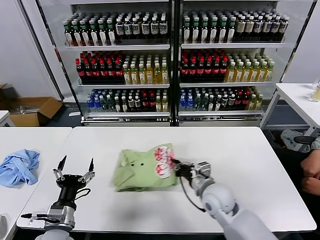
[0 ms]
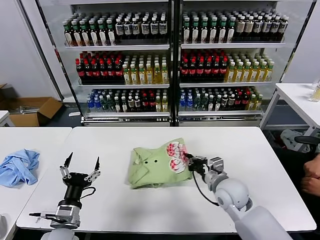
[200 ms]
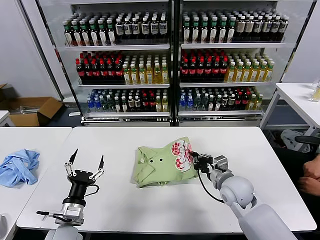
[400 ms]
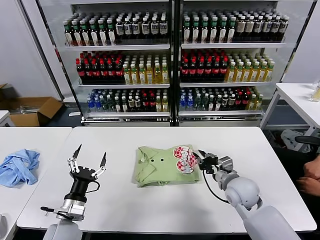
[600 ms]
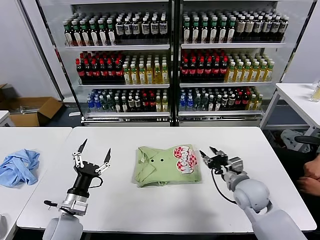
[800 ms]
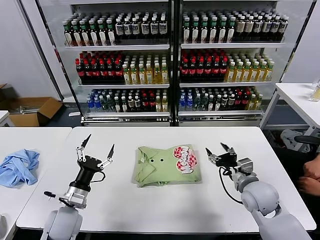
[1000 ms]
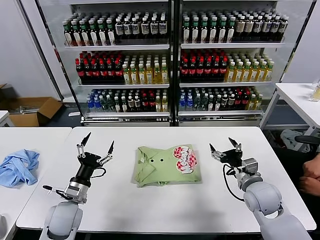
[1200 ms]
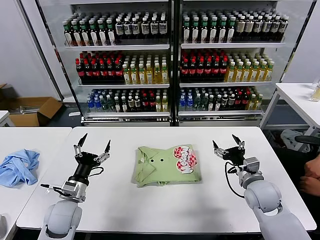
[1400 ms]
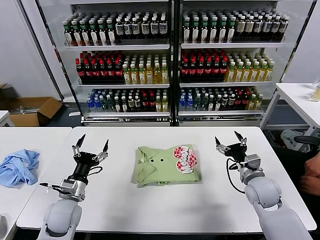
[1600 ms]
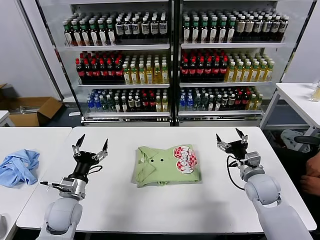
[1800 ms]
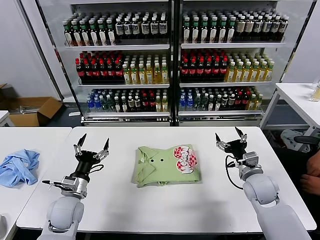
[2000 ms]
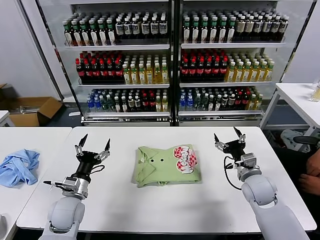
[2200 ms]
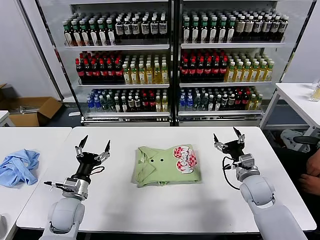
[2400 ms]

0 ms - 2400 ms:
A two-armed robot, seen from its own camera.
Task of the whole recording: fold and organize the clothes.
0 ms - 1200 ms: The left gripper travels forward by some 10 cm. Meanwhile the right gripper travels to the right by about 15 cm, and opens up.
1200 ms - 2400 ms: There are only small adjustments of the grippers.

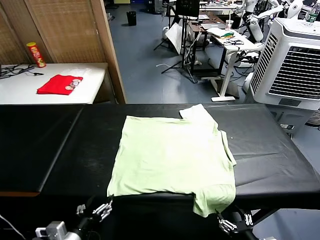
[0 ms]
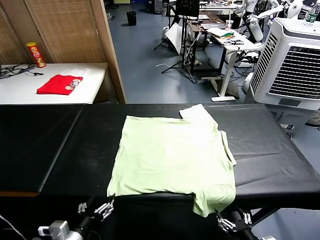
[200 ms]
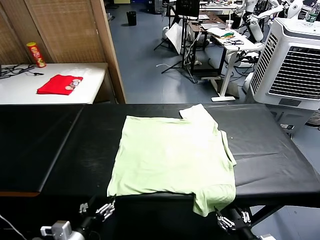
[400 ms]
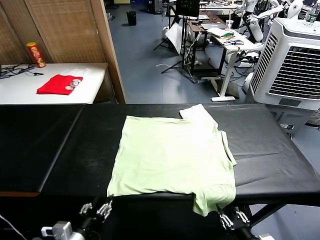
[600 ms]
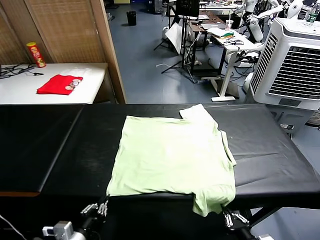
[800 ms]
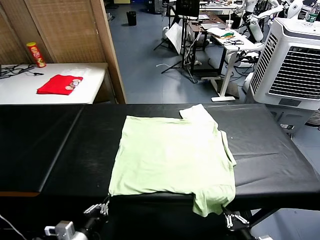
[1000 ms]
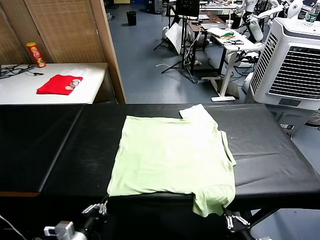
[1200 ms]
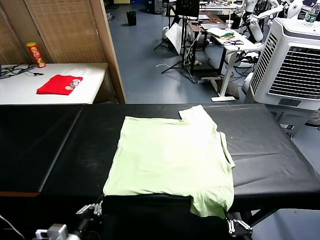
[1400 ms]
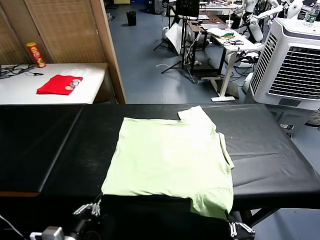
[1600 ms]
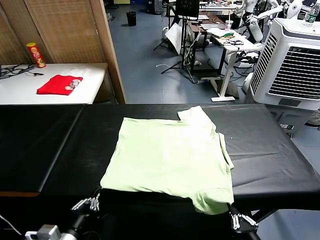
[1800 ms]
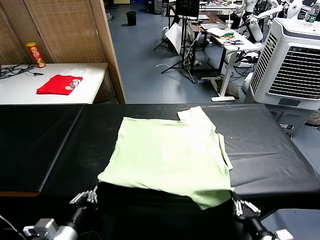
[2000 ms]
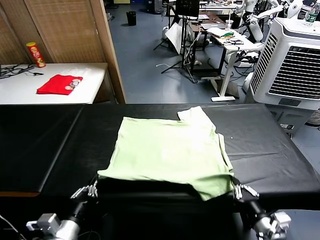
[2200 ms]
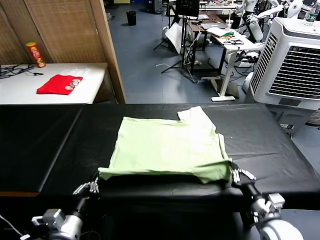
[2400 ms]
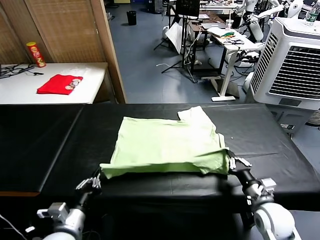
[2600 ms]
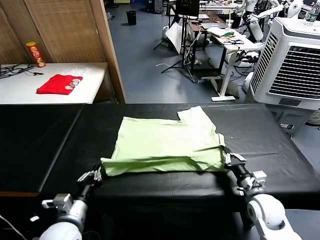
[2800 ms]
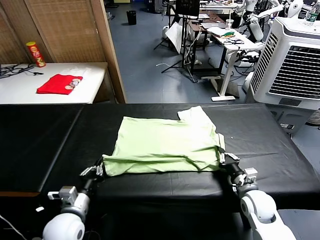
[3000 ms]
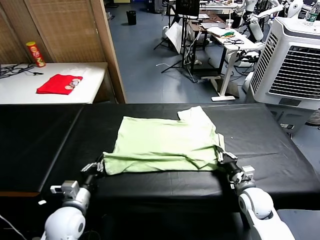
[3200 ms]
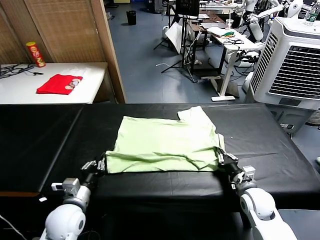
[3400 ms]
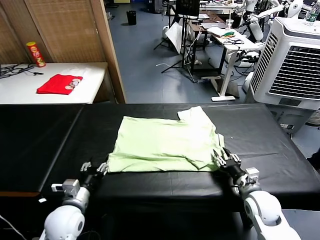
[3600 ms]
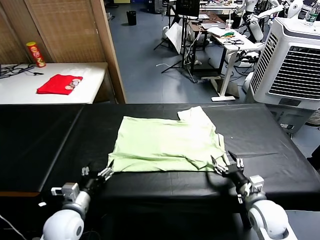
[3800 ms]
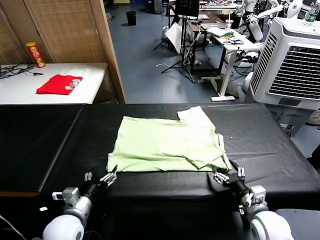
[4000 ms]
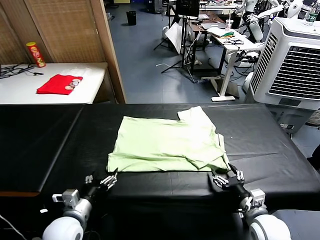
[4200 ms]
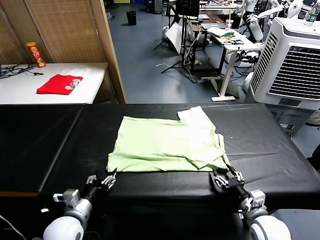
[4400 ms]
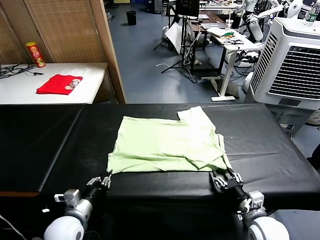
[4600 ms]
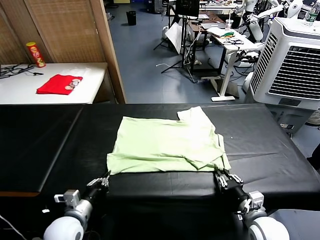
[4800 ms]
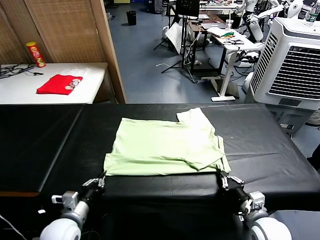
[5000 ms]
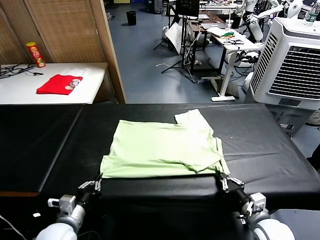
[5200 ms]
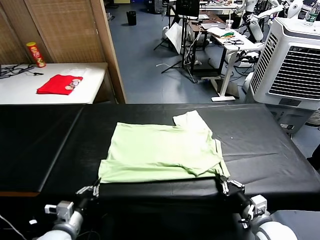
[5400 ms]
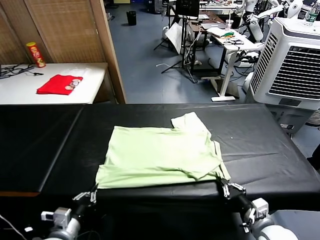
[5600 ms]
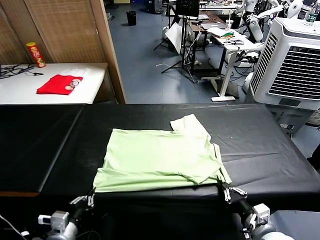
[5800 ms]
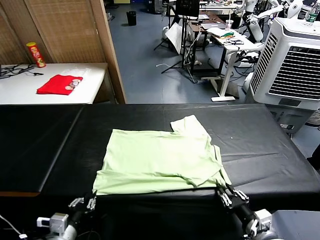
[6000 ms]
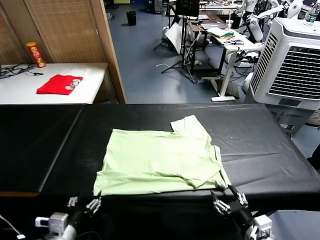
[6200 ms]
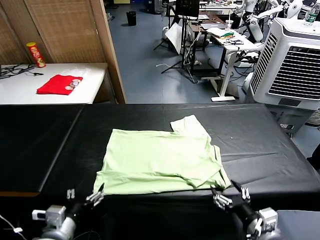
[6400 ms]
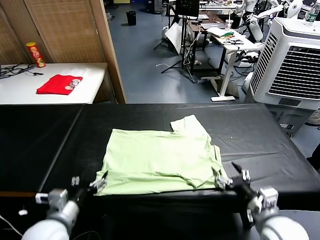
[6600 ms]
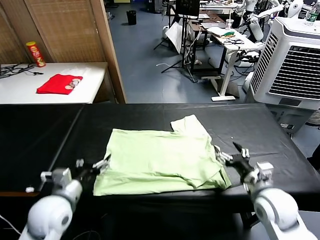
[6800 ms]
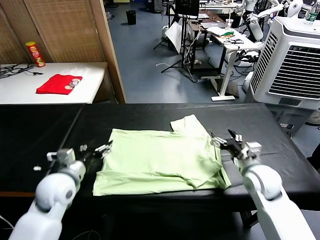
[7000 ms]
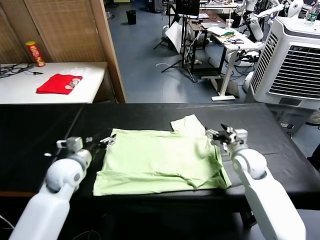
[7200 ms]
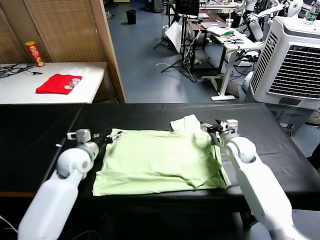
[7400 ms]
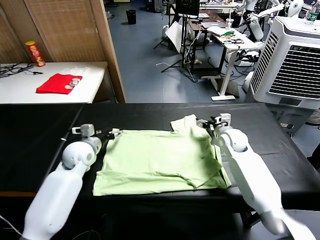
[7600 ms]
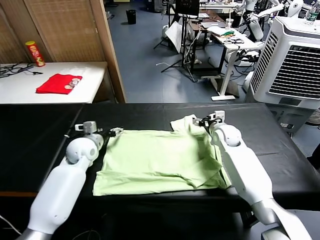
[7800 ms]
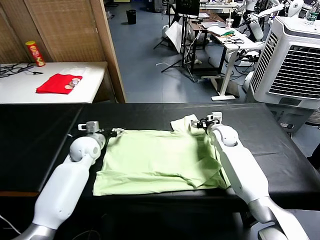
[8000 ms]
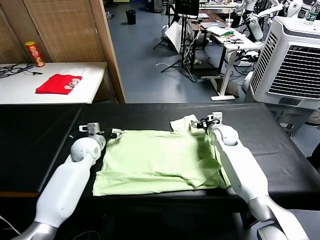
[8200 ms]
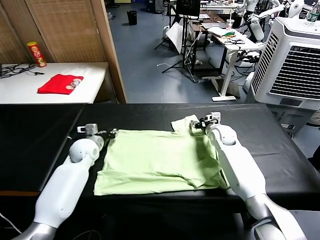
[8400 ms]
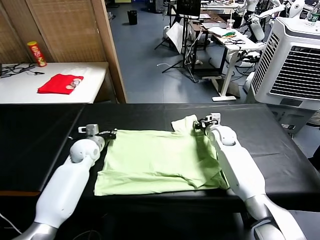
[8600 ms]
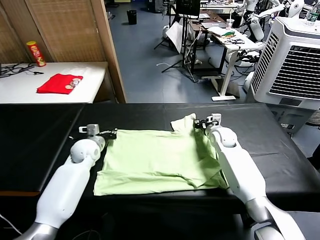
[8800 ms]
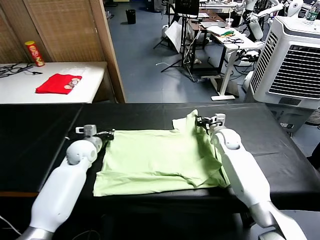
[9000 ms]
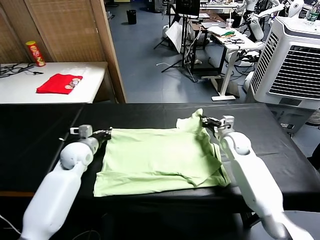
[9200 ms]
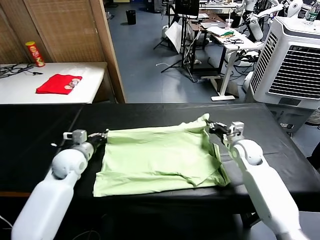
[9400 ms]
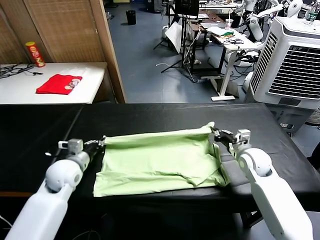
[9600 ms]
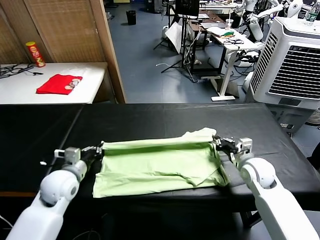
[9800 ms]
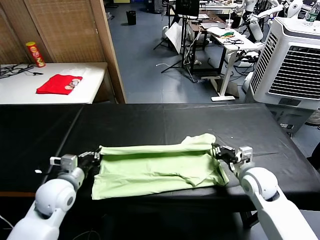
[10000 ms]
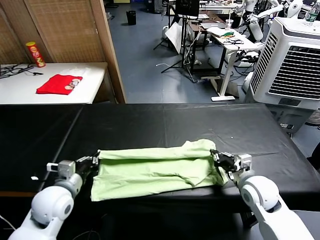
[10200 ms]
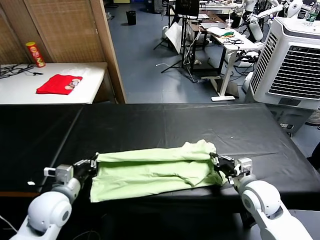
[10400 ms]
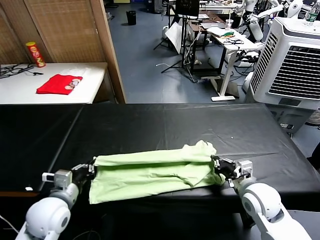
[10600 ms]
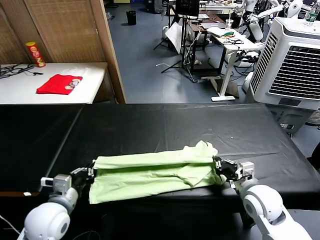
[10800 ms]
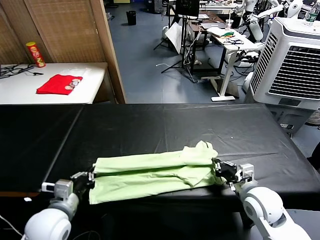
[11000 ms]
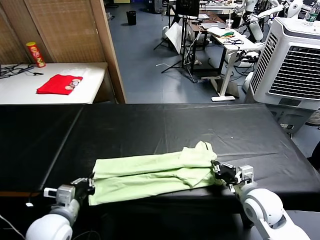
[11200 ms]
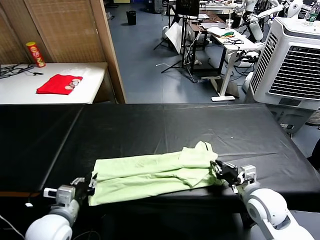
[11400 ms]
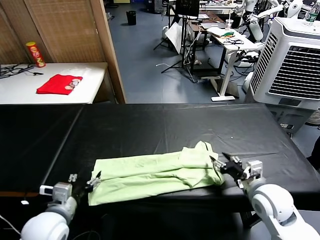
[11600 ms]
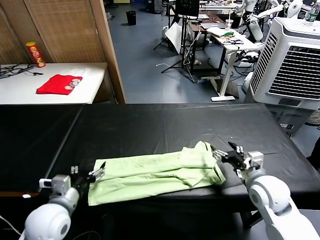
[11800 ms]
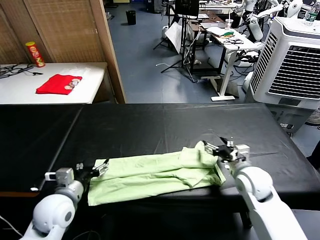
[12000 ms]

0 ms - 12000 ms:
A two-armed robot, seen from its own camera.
Task of the whole recording: fold and organize the clothes.
Step, 0 ms - 1200 ms: use both grippers simultaneously to clamp the lower edge of the clothing fabric.
Step, 1600 ms - 3600 ms: use both grippers to drag the lower edge of the fabric forward and fold it over the upper edge.
Step, 3800 ms - 6200 ms: Drag the clothes downward with both gripper.
Step, 6400 ms - 8600 ms: use both grippers simultaneously to clamp the upper edge of the clothing fabric.
Step, 8800 ms - 11600 ms: use both grippers to drag the upper edge of the fabric backward and fold it over the lower edge.
1600 ms - 3000 ms: The left gripper heads forward, covering roughly 10 cm. Meanwhile the right gripper heads forward, covering approximately 25 cm.
3000 ms - 4400 ms: The right gripper is displaced backward by roughly 10 cm, and opens up; the left gripper opens up.
4400 ms - 6000 ms: The grippers both shift backward by approximately 10 cm. The left gripper closes and opens again, while the right gripper closes, then reopens.
6000 ms - 7600 ms: Both grippers travel together forward, approximately 35 cm. The left gripper opens its fingers.
7600 ms - 9000 ms: The left gripper closes its fingers. The right gripper closes.
9000 ms - 10400 ms: The grippers both shift backward by about 20 cm.
10400 ms - 12000 ms: The left gripper opens. The right gripper goes about 5 cm forward, and opens its fingers.

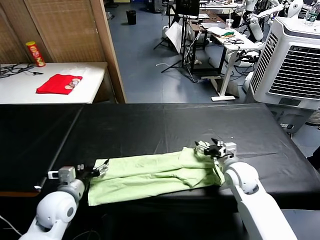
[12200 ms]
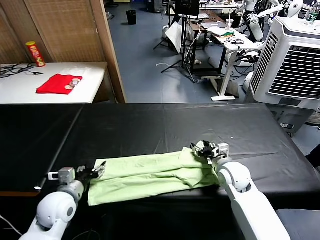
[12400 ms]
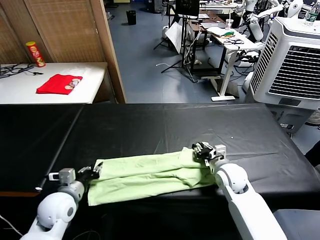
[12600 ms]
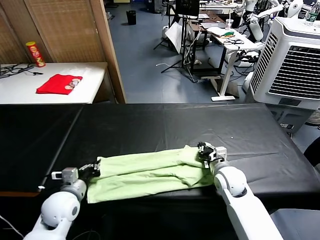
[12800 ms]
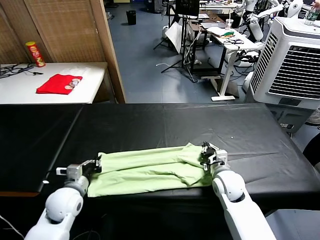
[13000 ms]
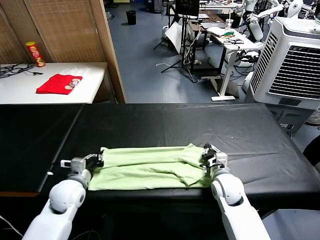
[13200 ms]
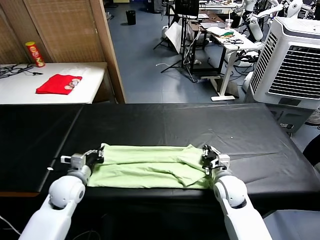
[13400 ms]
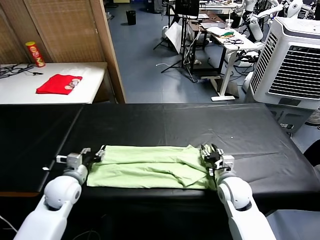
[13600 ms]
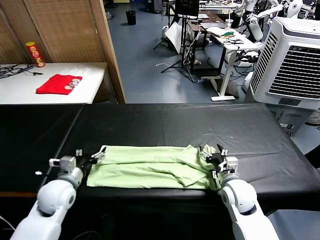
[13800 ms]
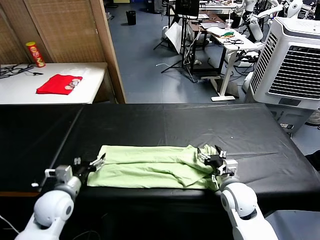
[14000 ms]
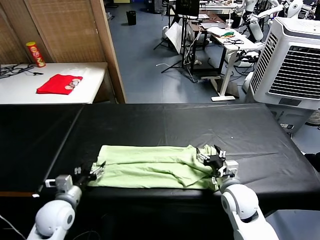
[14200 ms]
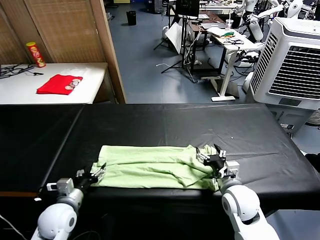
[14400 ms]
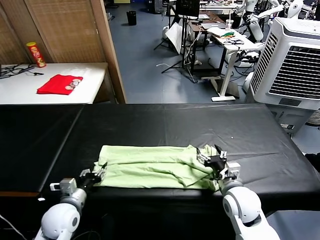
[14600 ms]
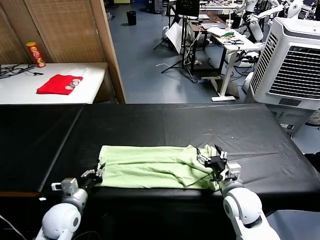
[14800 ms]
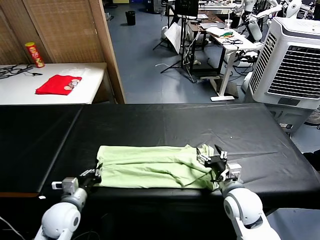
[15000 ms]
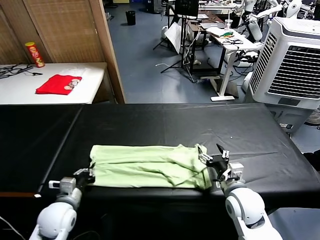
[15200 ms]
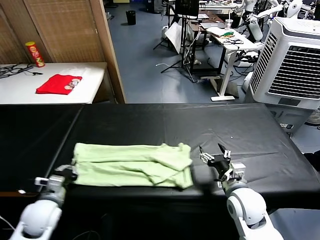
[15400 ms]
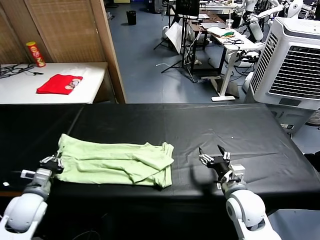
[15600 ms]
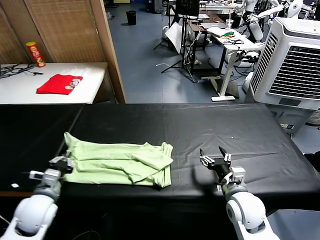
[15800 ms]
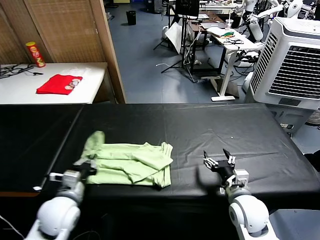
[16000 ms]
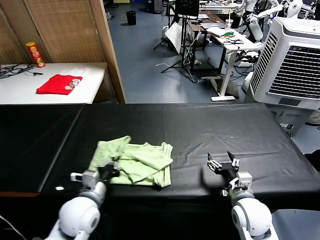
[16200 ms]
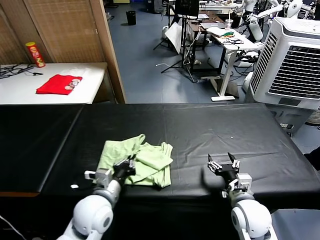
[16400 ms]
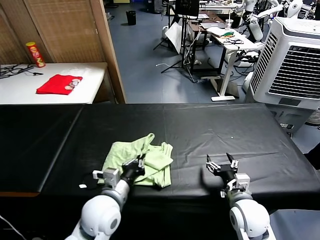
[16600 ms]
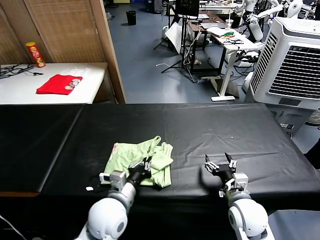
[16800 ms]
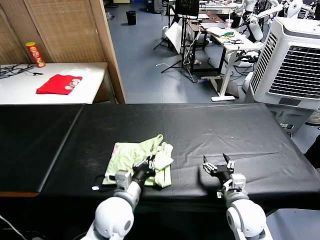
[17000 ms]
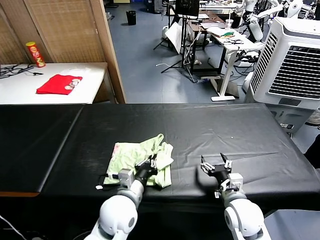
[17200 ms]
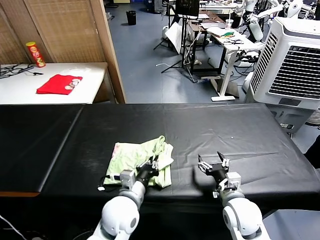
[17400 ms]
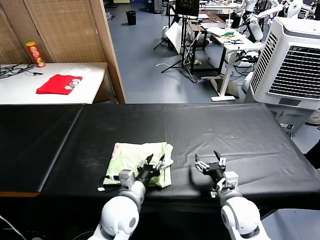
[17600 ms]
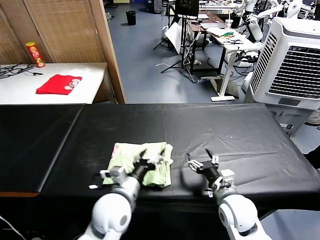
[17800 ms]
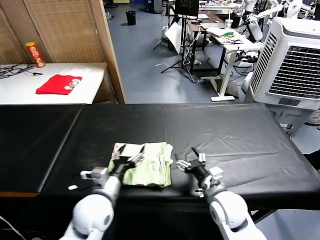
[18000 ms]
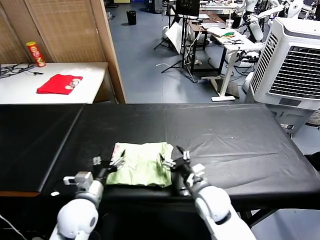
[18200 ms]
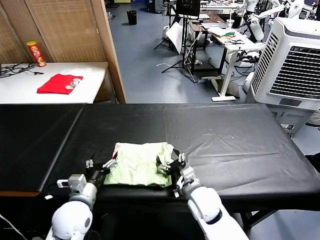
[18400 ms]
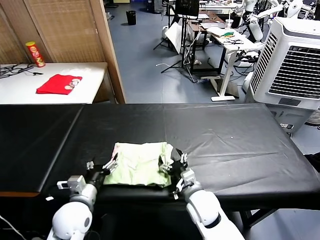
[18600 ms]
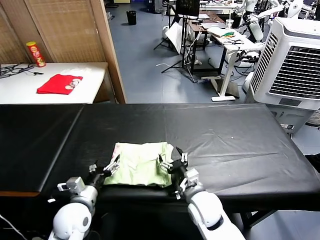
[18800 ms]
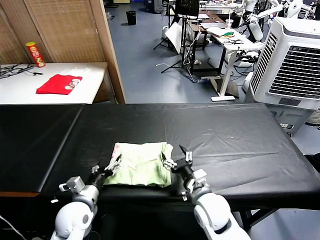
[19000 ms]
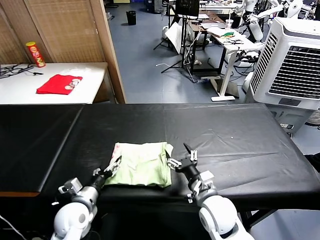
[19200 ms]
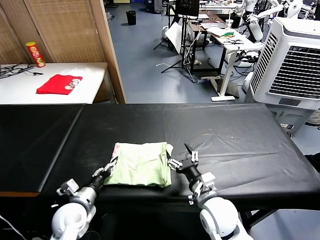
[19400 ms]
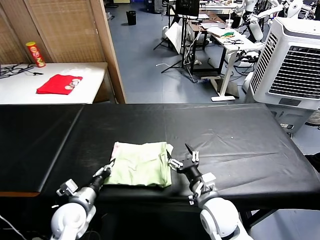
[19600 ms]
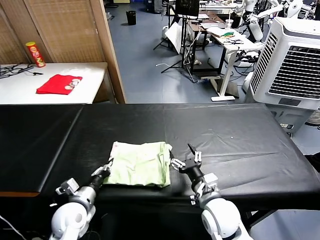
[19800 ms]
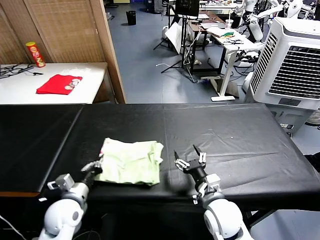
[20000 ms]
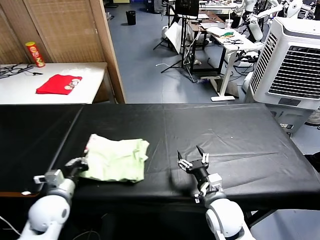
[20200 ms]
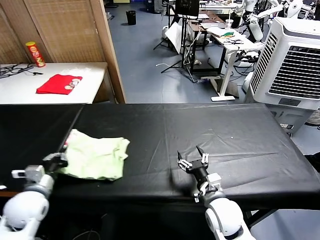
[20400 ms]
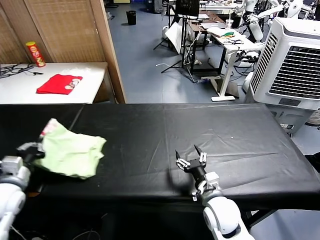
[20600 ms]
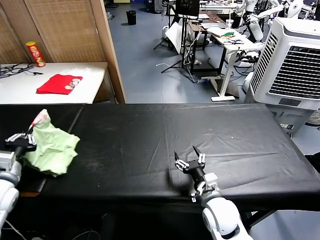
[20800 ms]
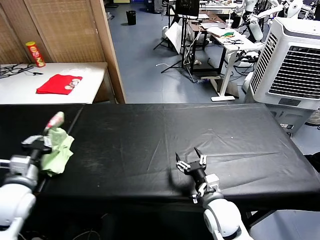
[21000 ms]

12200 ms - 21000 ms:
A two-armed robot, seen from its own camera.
Task of the whole recording: fold and organize the clothes.
Step, 12200 ms - 14800 ms: use the left gripper to clamp the left edge of the fabric.
Step, 15000 ms - 17600 ms: use the left gripper to drag the left edge of the fabric to the left and folds it over the right edge.
12200 ms - 13600 ms: The right gripper changes place by approximately 5 cm, and closes and opens again, while the left gripper travels forward by some 5 cm, and closes up.
13600 ms - 15200 ms: The right gripper moves about 5 cm. Meanwhile the left gripper travels backward by about 5 cm, and closes.
15200 ms - 16600 ms: The left gripper heads to the right and upward, covering about 15 cm.
16600 ms - 18000 ms: The right gripper goes roughly 5 cm to the left, while the left gripper opens its fingers.
18000 ms - 19600 ms: The left gripper goes roughly 15 cm to the left and downward, and closes up.
19600 ms - 21000 ms: The left gripper travels upward and to the left by about 15 cm.
